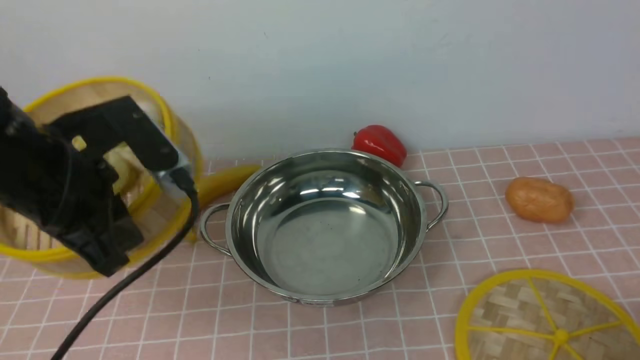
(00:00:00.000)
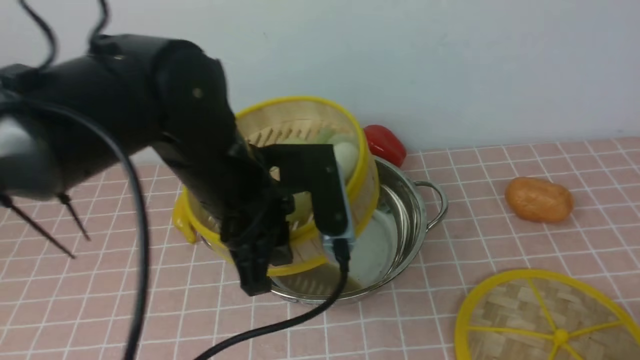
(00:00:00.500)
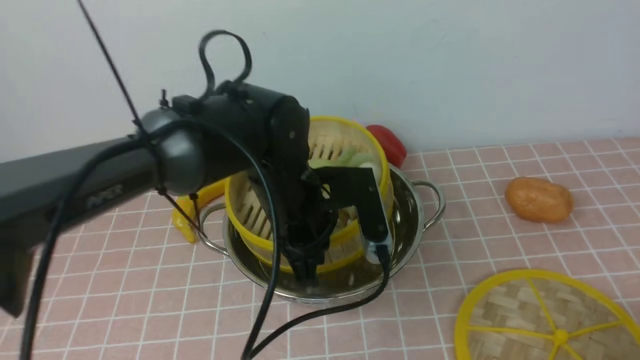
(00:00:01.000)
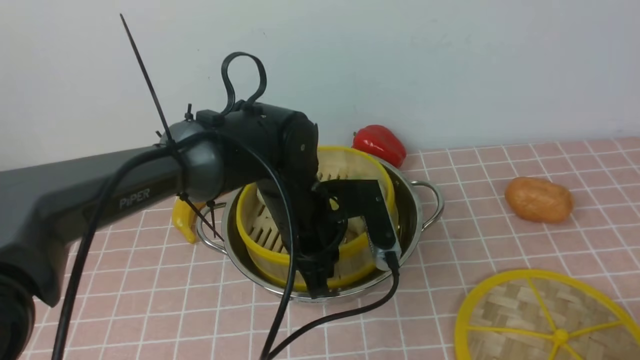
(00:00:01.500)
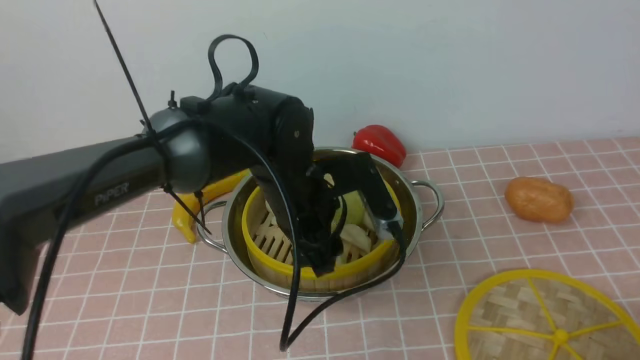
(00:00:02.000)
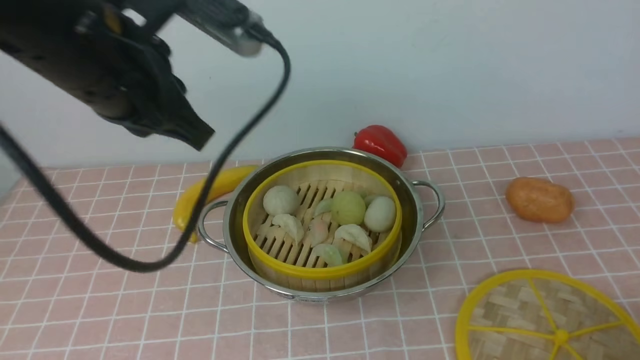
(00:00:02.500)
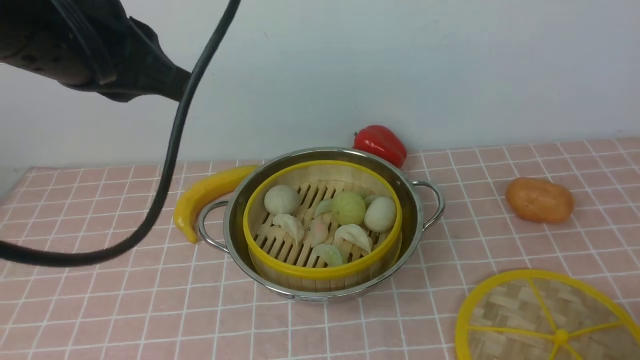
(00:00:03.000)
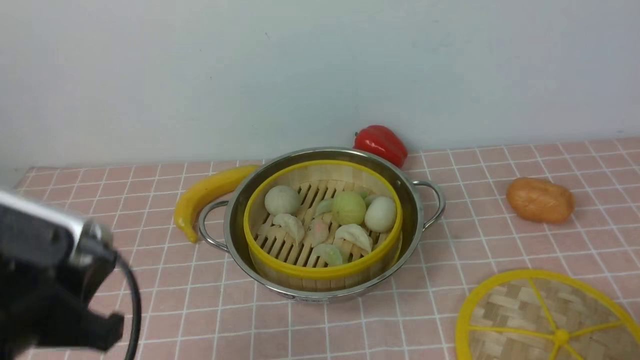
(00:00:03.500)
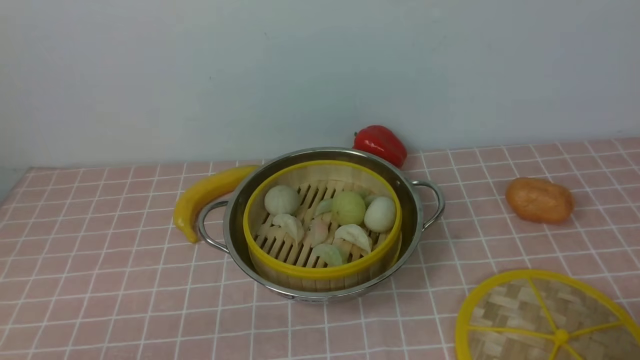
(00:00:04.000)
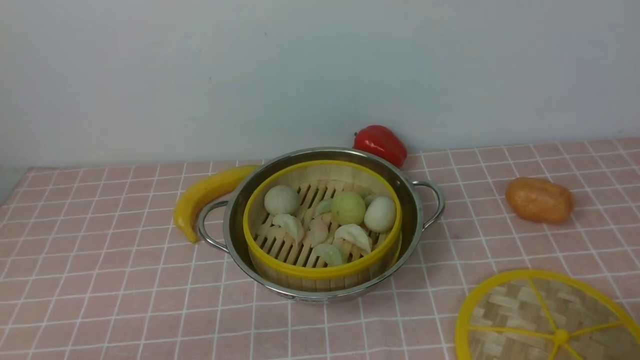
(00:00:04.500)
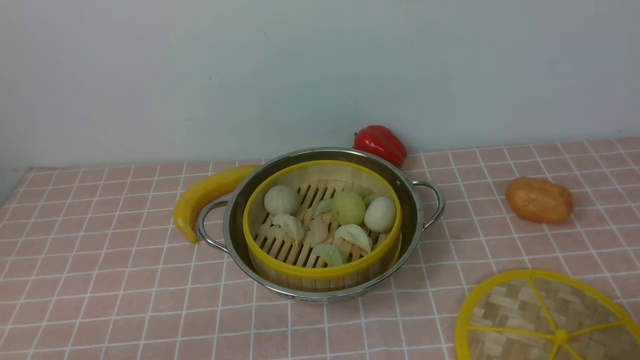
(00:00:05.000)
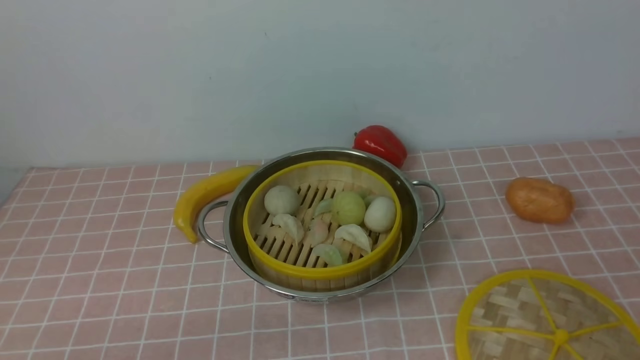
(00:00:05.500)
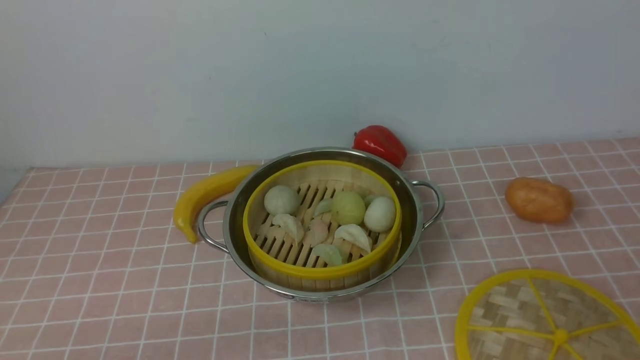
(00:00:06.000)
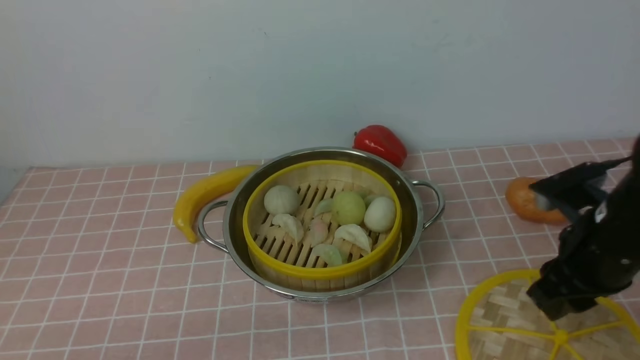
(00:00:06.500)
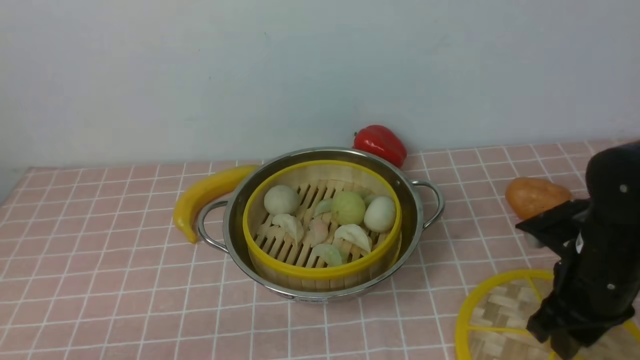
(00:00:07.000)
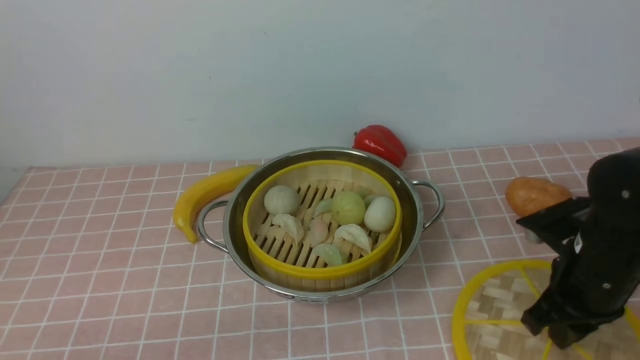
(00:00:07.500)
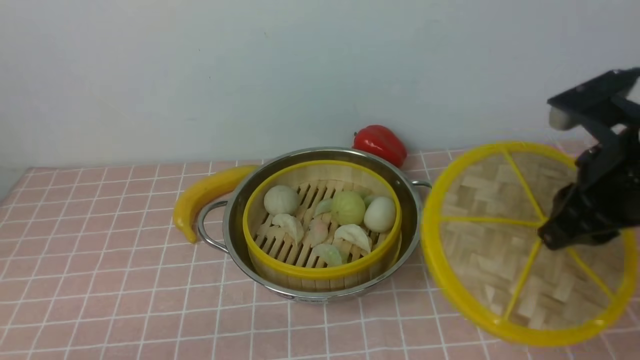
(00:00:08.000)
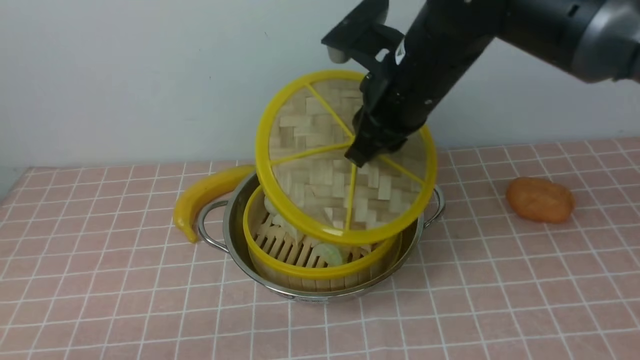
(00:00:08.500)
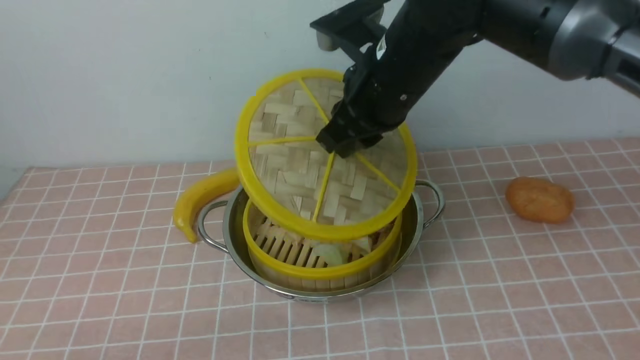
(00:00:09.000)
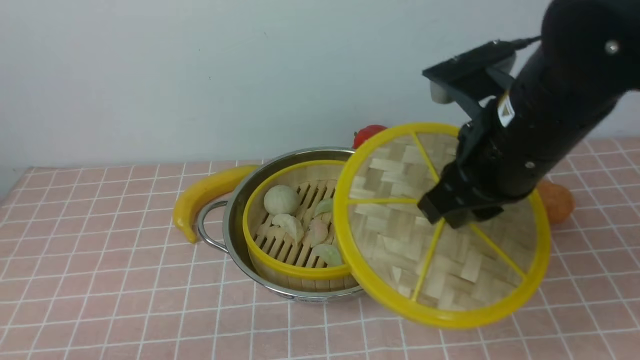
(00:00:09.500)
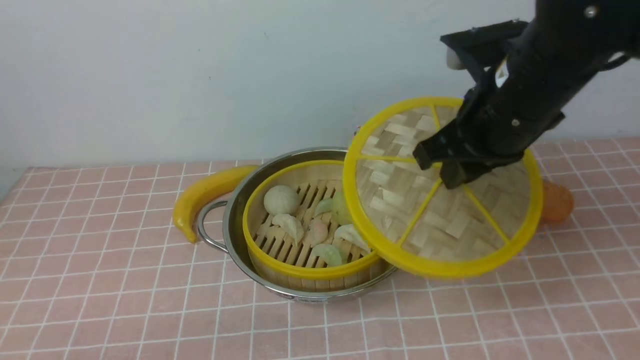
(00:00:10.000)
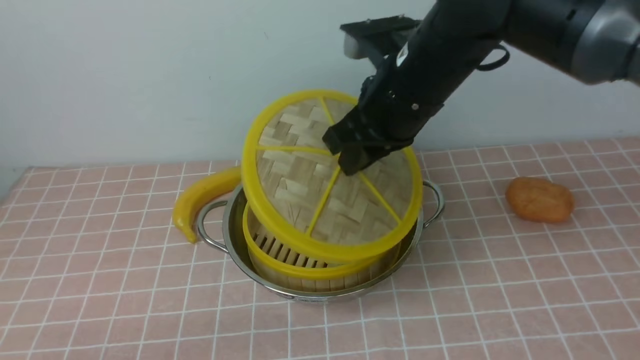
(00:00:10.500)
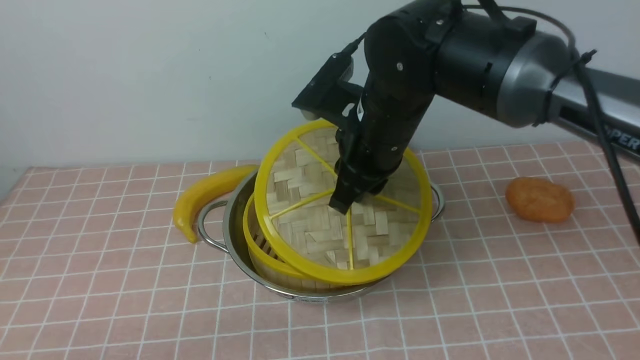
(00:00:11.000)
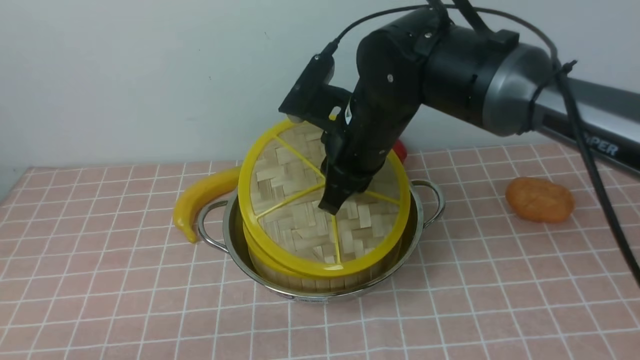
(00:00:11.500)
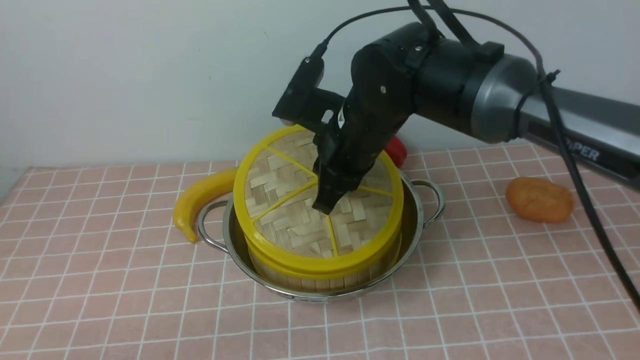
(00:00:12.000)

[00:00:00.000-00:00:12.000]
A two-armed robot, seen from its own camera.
Task of the whole recording: place the steamer in the pot on the pink tablecloth, and put the lid on the steamer.
Step, 00:00:00.000 to 00:00:02.000: use the left arm to put the steamer into the iron steamer pot in the middle.
Step, 00:00:02.500 to 00:00:07.500: use the right arm to lift the lid of the steamer.
00:00:00.000 to 00:00:02.000: The left gripper is displaced to the right, forward and downward by roughly 20 cm, and opens.
00:00:02.000 to 00:00:04.000: The left gripper is displaced backward and to the left by roughly 35 cm, and closes its fingers.
00:00:06.000 to 00:00:08.000: The right gripper is displaced forward and to the left by roughly 20 cm.
00:00:08.000 to 00:00:10.000: The right gripper heads to the left and forward, covering roughly 10 cm.
00:00:10.000 to 00:00:12.000: The right gripper moves to the left and downward, some 15 cm.

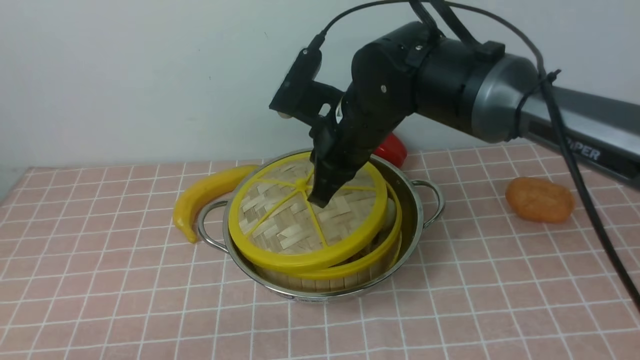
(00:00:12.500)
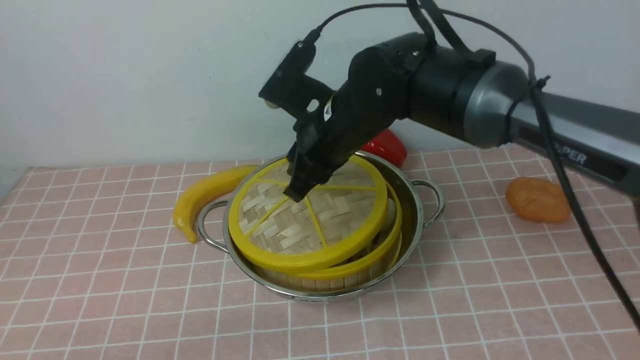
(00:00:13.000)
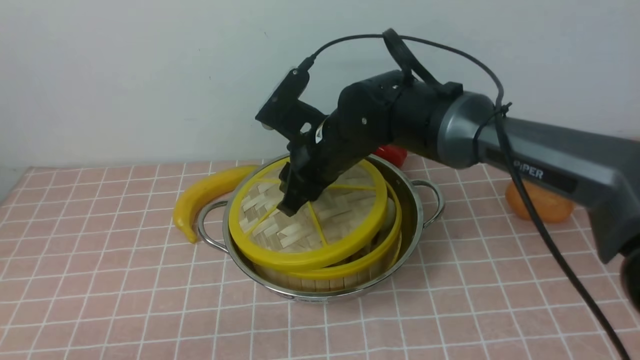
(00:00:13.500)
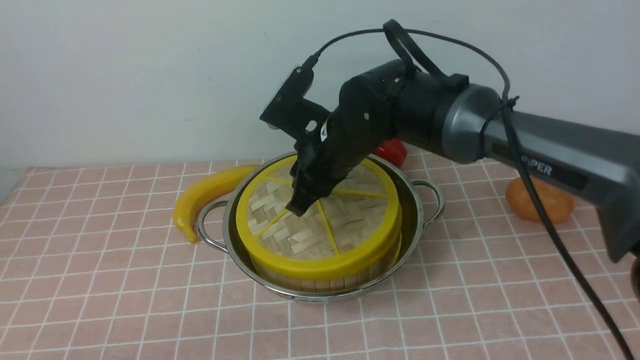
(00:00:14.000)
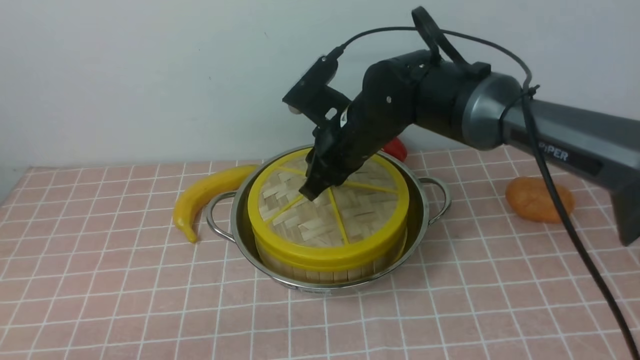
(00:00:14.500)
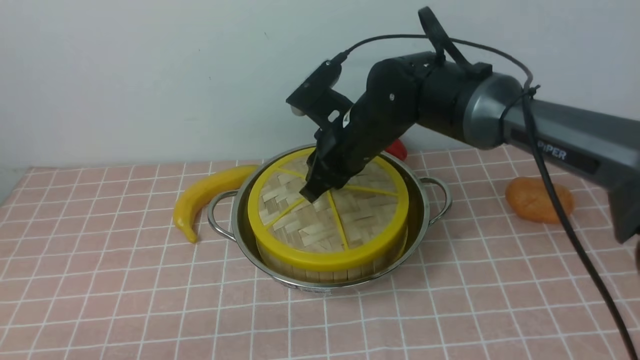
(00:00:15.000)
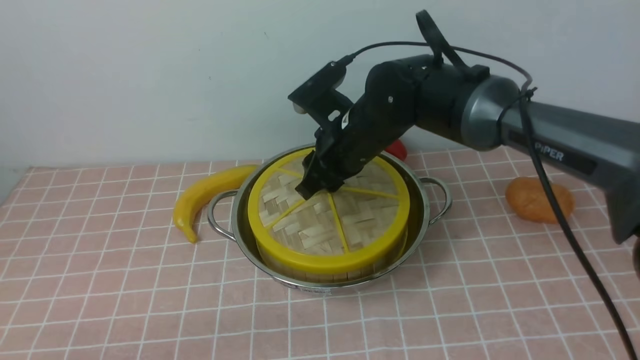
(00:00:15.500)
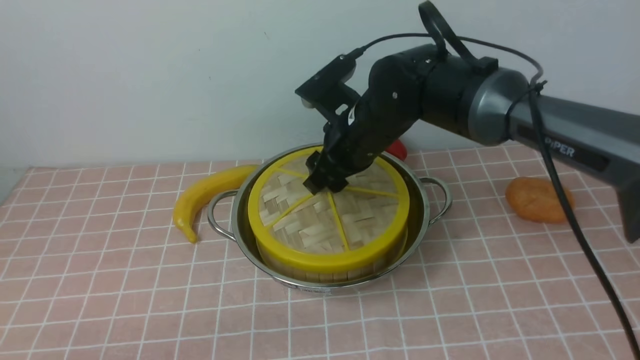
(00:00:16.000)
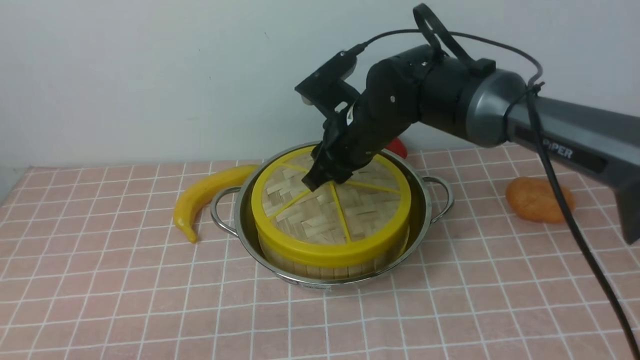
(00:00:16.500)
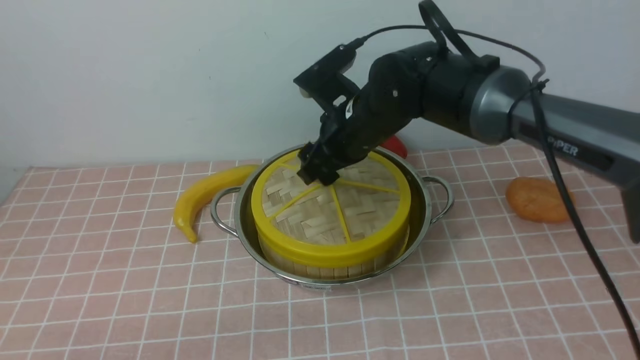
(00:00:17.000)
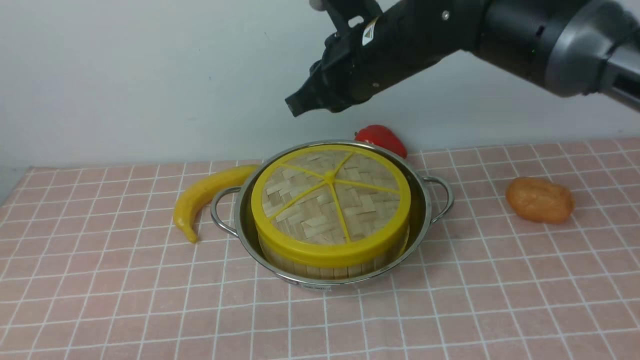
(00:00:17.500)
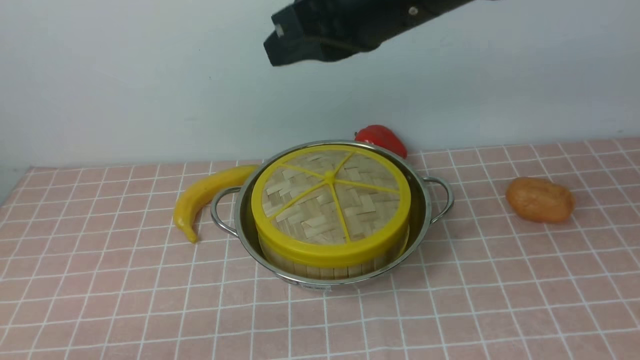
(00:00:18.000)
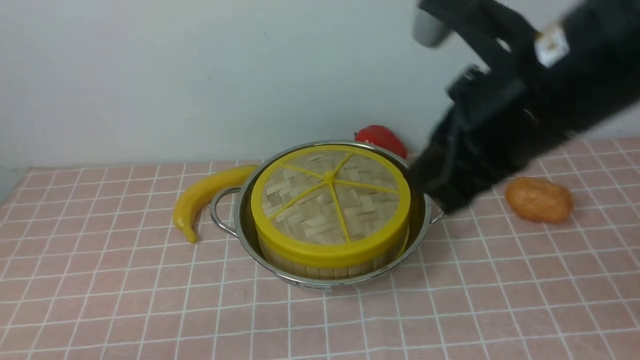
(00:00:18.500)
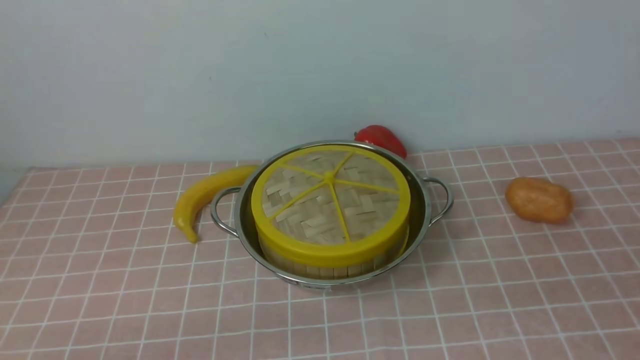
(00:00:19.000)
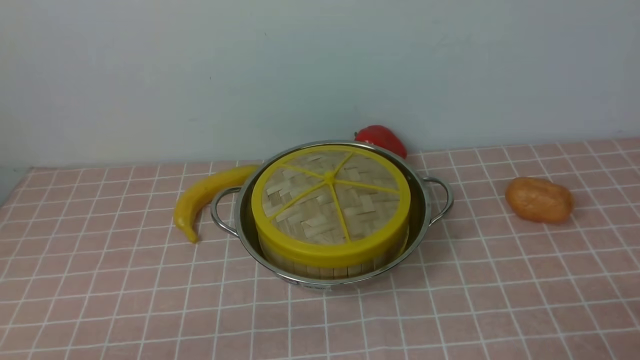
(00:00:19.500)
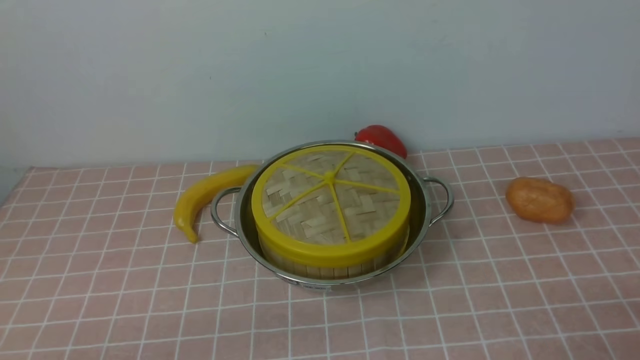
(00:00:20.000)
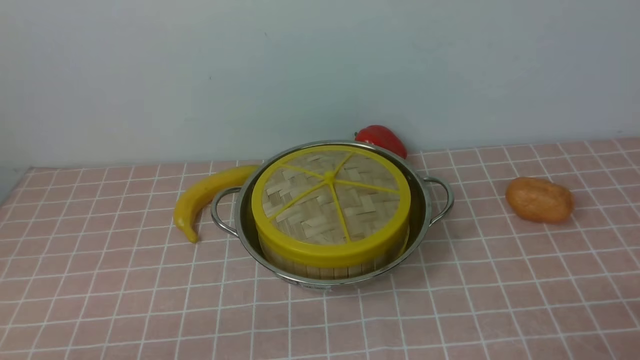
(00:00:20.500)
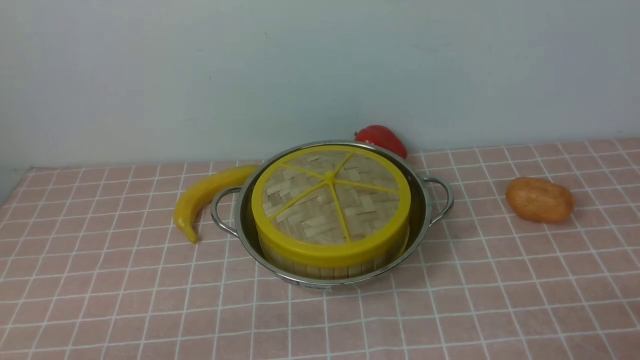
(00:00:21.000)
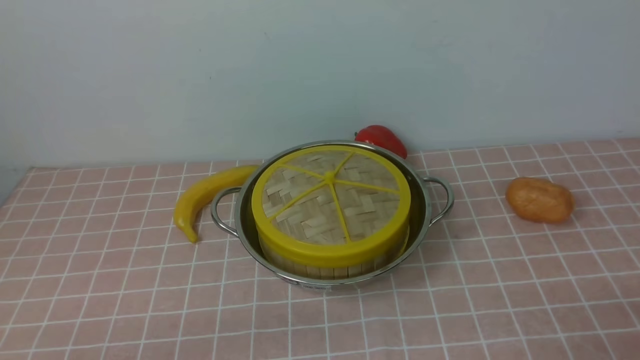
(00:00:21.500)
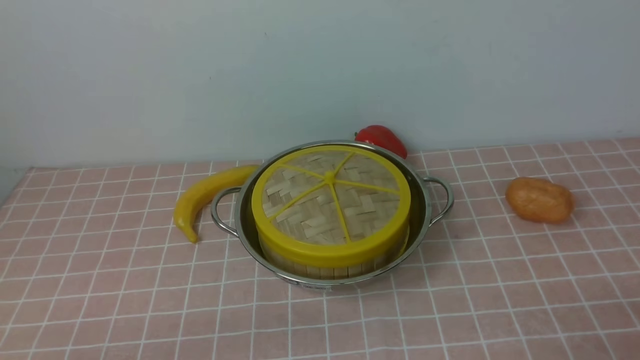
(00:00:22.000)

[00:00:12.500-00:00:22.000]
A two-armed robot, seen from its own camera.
Task of the whole recording: place the steamer in the pot on the pink tablecloth, and put the lid on the steamer.
Step, 00:00:12.500 to 00:00:17.000: use the right arm to place the steamer lid on the steamer.
00:00:12.500 to 00:00:14.500: There are only small adjustments of the grippers.
00:00:14.500 to 00:00:16.500: The right gripper opens up.
00:00:16.500 to 00:00:18.000: The right gripper is displaced upward and backward by approximately 20 cm, and closes.
00:00:18.000 to 00:00:20.000: The right gripper travels backward, to the right and downward by some 40 cm.
00:00:20.000 to 00:00:22.000: Both grippers stay about where they are.
